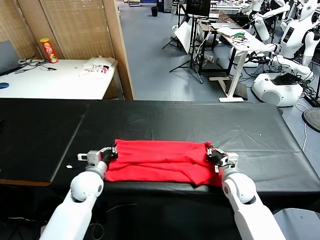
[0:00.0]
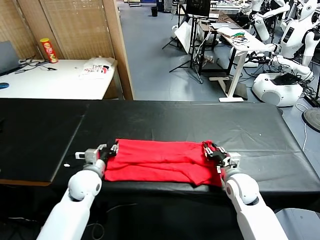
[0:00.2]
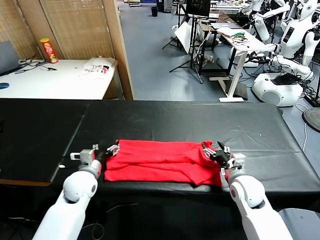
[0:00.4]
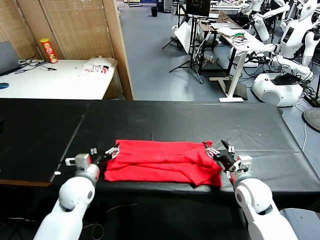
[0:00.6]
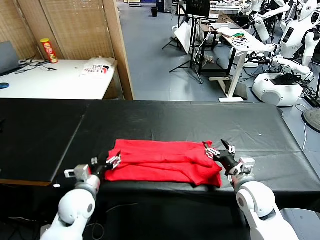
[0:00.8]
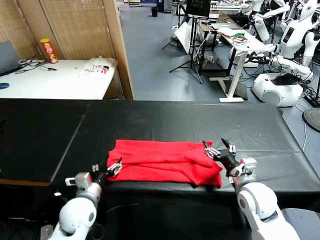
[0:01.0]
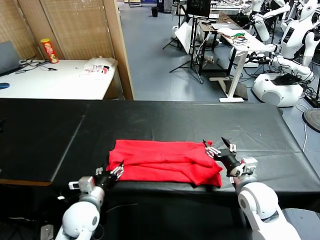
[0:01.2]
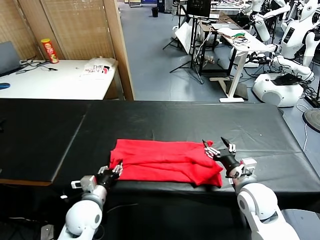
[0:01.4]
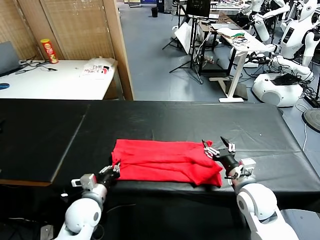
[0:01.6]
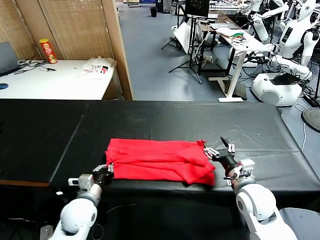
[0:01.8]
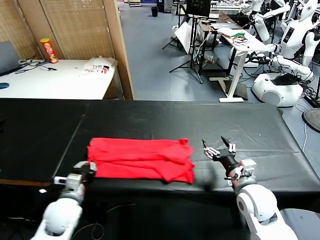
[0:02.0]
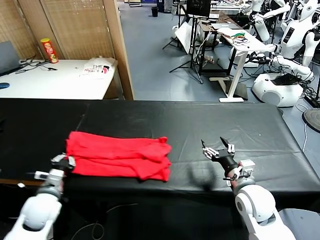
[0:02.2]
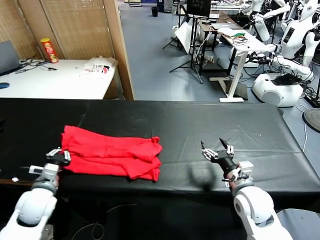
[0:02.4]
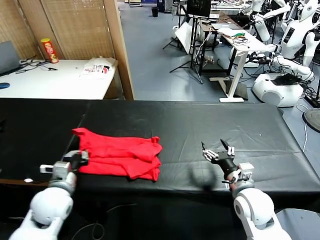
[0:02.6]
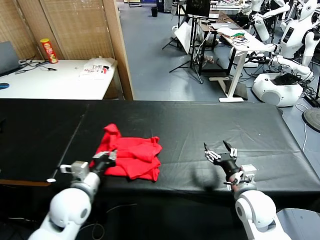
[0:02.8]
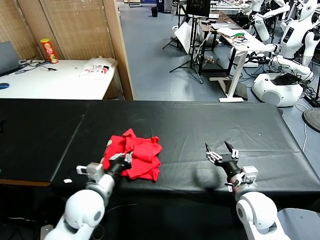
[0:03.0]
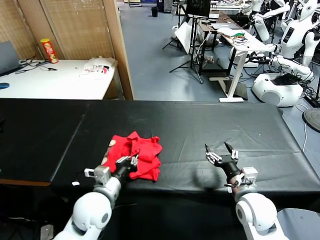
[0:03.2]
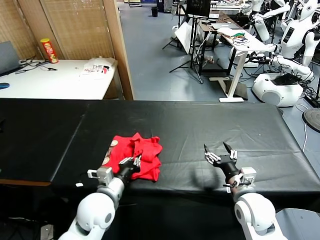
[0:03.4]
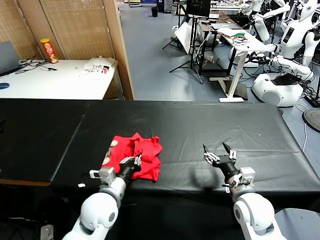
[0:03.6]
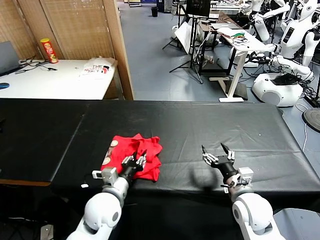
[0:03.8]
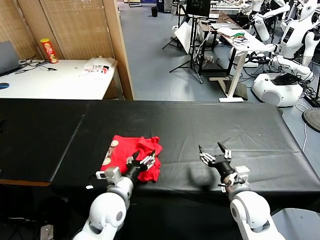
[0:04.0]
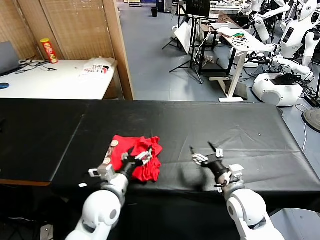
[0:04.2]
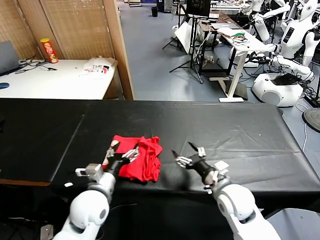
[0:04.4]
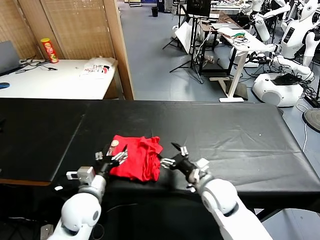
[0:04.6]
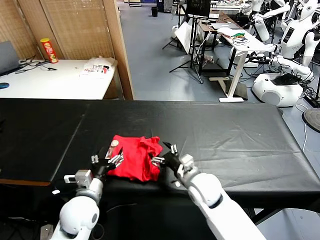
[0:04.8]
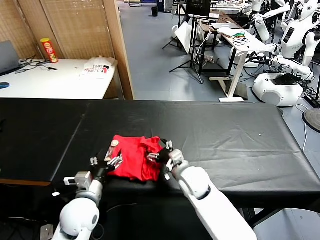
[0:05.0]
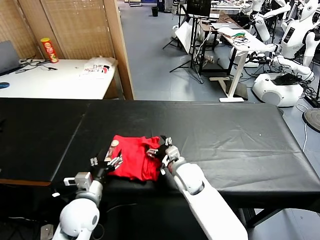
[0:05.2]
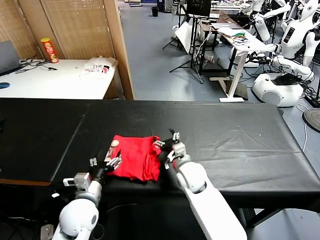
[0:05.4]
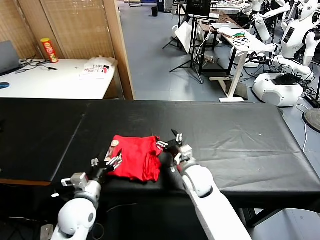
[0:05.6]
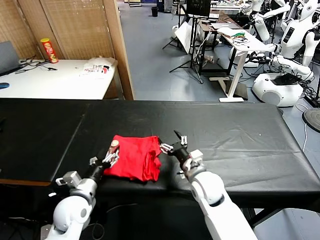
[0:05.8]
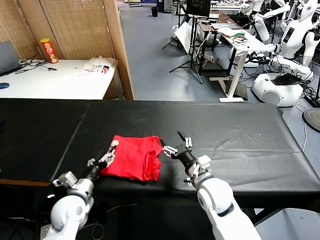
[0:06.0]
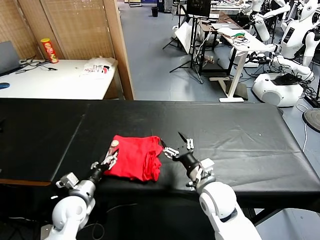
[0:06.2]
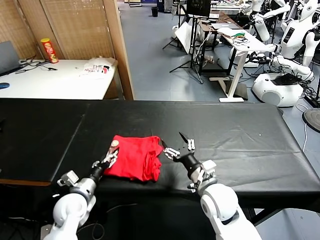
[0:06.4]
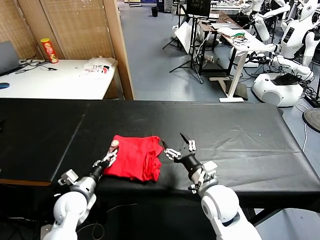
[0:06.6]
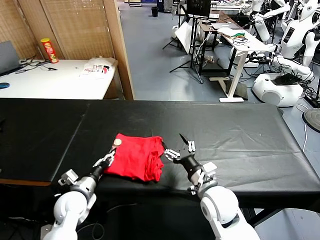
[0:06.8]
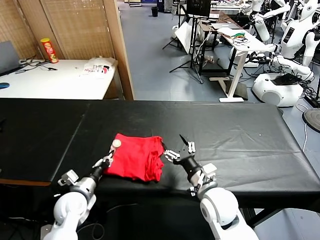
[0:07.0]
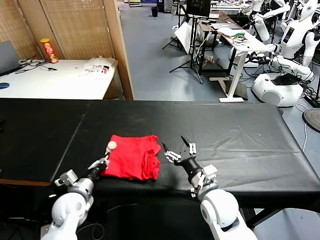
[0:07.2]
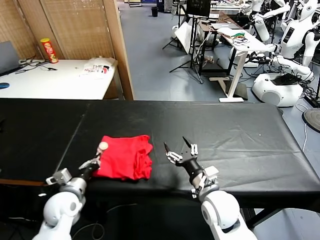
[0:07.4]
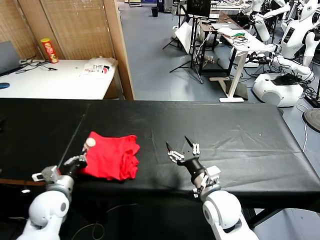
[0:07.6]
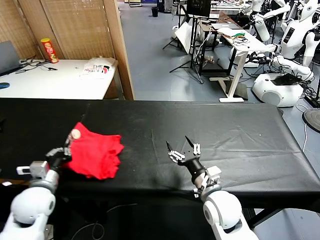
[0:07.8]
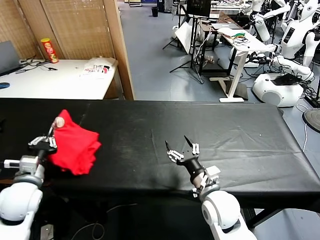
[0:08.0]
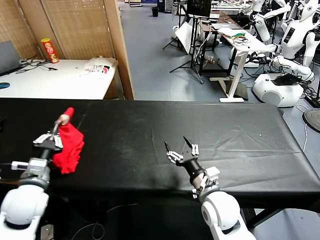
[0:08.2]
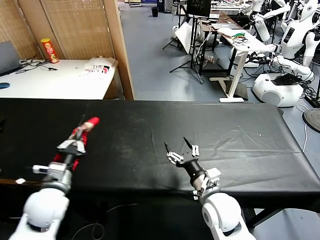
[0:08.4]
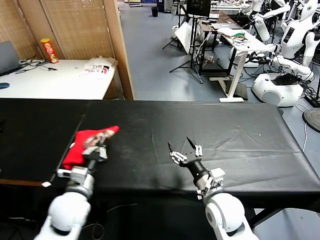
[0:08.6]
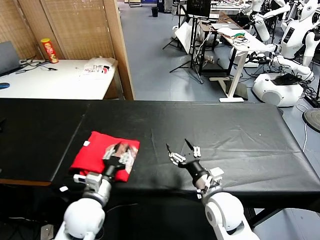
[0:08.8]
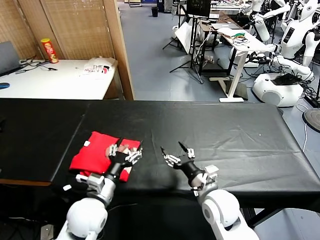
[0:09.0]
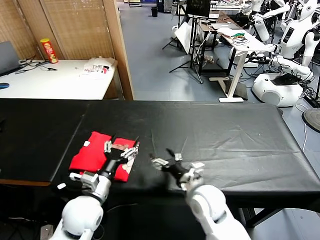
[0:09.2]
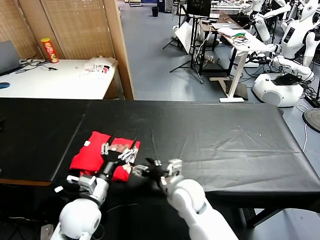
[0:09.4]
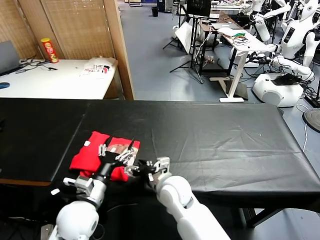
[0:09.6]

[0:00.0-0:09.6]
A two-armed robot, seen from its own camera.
Task of the whole recording: fold and organize the clothes.
Step, 0:00.0 to 0:01.6: use the left gripper to clamp the left edge of the fabric.
Step, 0:01.8 to 0:04.2: use the left gripper to drag the left edge of the fabric to the left and folds it over the right edge.
Step, 0:04.4 to 0:08.8: Flip the folded clothes over with left gripper.
0:00.0 to 0:01.6: The left gripper heads backward, covering some 10 cm, and opens, then closes again. The right gripper is displaced backward and upward by roughly 10 cm, and opens.
0:01.6 to 0:03.2: The left gripper heads upward, covering some 5 cm, and goes to the left and returns, about 10 cm each way.
0:03.2 to 0:04.8: The right gripper goes some 15 cm to the left and forward; the left gripper opens up.
0:04.8 to 0:06.4: The left gripper travels to the left and downward by approximately 10 cm; the right gripper heads backward, covering some 5 cm.
0:06.4 to 0:08.0: The left gripper shifts roughly 15 cm upward and to the left, and closes up.
0:08.0 to 0:09.6: The left gripper shifts approximately 15 cm to the right, and opens. Meanwhile the right gripper moves to the left and forward, some 15 cm.

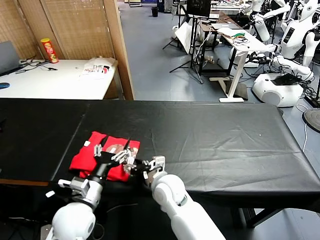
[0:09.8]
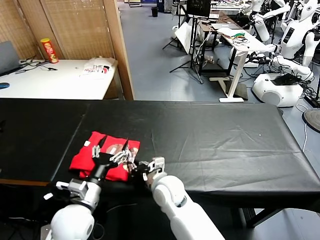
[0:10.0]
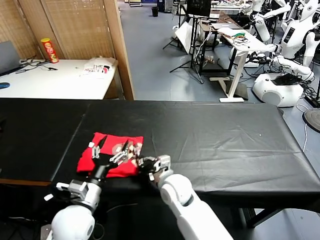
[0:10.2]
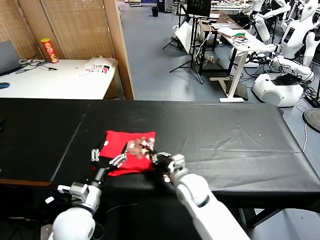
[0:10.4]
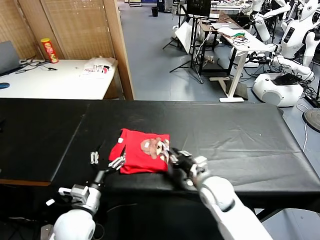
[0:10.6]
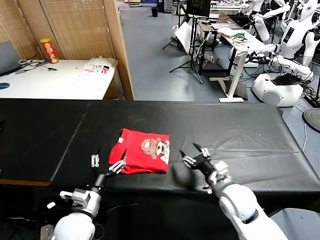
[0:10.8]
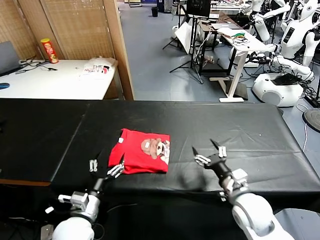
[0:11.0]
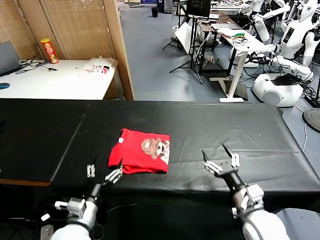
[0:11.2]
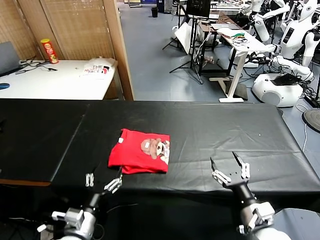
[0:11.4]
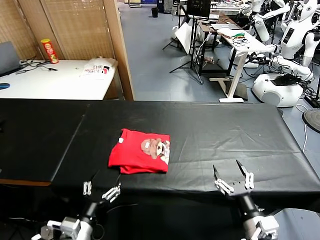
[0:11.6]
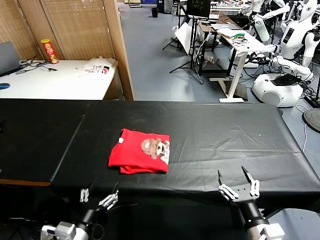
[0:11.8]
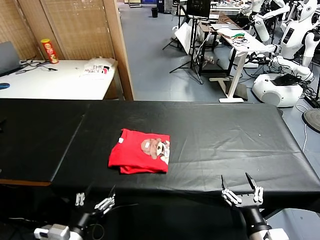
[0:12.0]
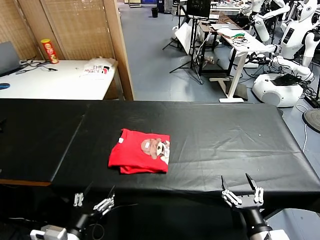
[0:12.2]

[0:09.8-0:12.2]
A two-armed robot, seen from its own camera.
Task of the whole recording: fold and organize the clothes.
Step, 0:09.8 to 0:10.6: Drag the clothes to the center of the table.
0:09.8 to 0:11.0: The right gripper heads to the right, covering about 25 cm, and closes, then reopens.
0:11.0 to 0:12.2: The left gripper goes some 10 cm backward and upward, while the right gripper is displaced backward by roughly 15 cm.

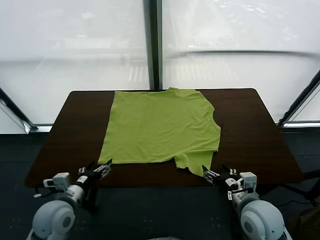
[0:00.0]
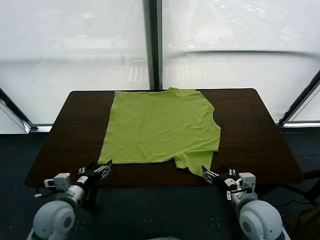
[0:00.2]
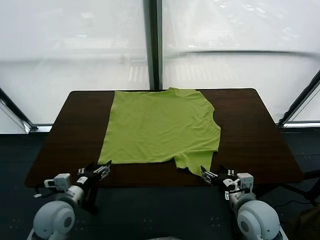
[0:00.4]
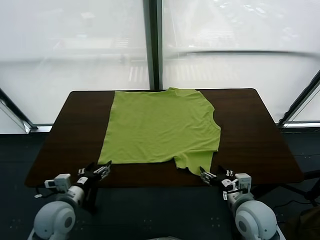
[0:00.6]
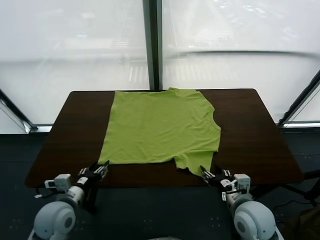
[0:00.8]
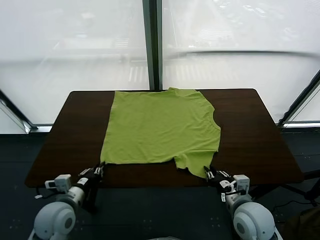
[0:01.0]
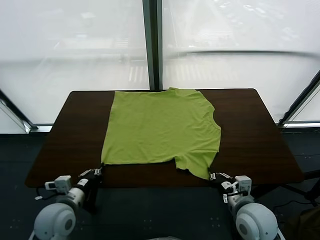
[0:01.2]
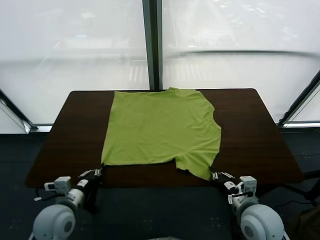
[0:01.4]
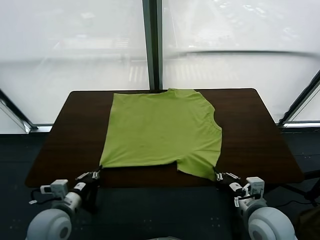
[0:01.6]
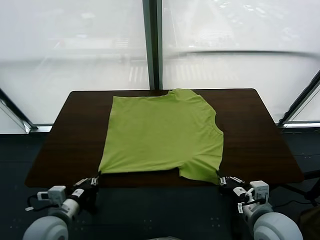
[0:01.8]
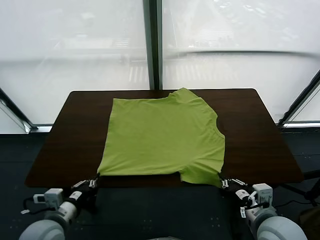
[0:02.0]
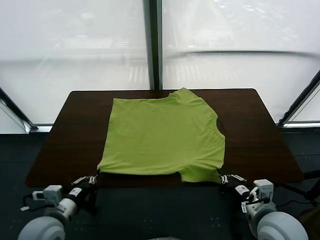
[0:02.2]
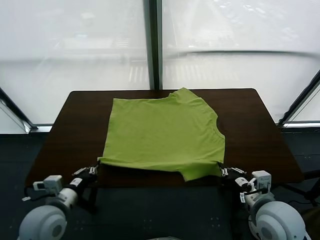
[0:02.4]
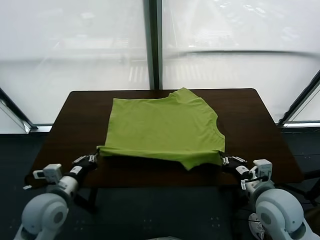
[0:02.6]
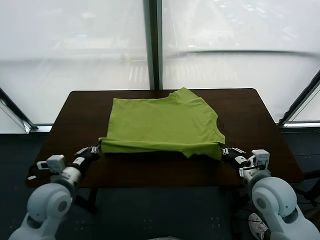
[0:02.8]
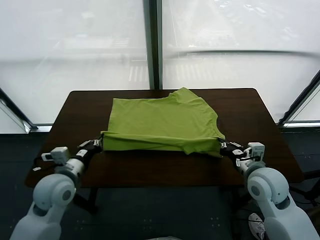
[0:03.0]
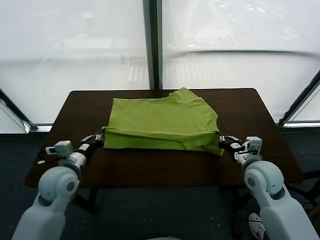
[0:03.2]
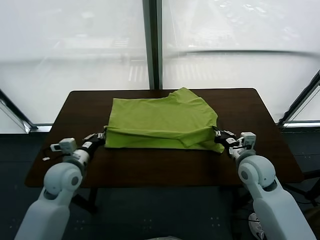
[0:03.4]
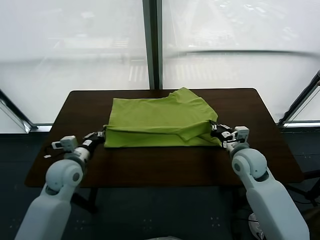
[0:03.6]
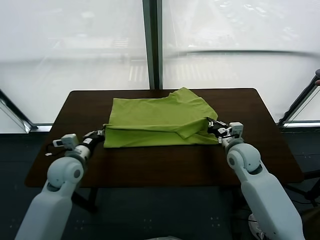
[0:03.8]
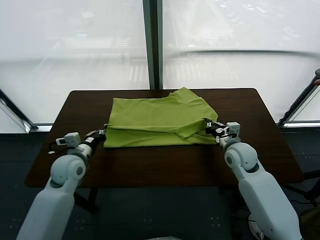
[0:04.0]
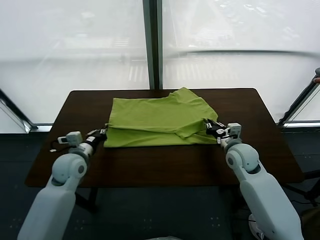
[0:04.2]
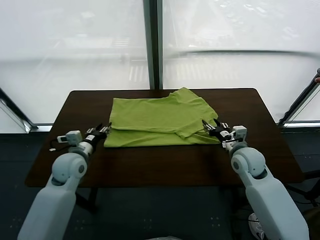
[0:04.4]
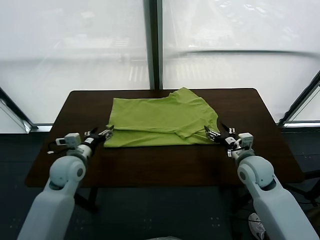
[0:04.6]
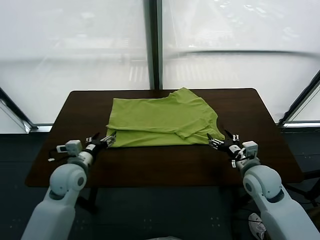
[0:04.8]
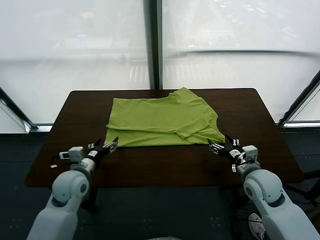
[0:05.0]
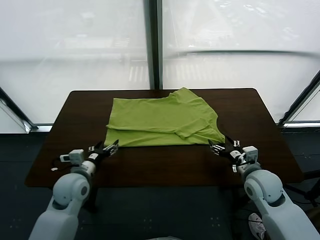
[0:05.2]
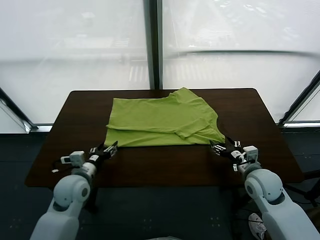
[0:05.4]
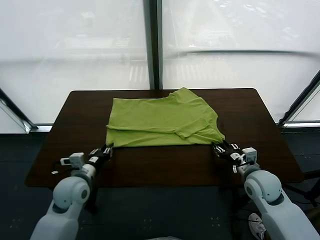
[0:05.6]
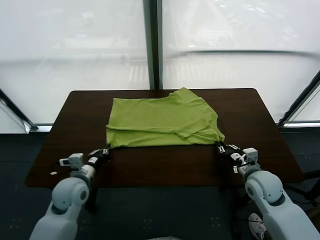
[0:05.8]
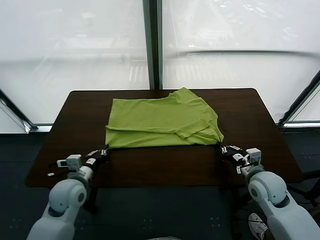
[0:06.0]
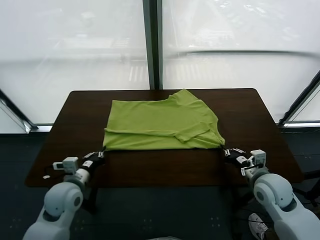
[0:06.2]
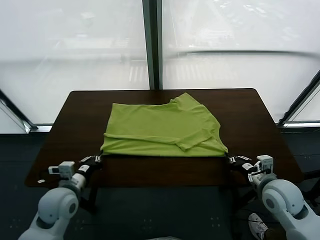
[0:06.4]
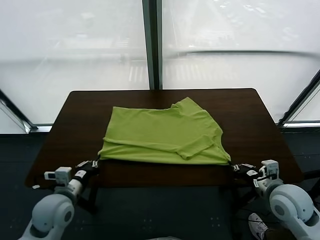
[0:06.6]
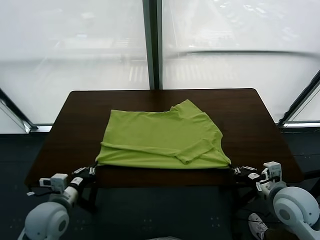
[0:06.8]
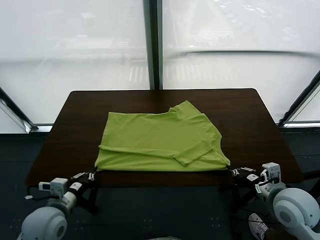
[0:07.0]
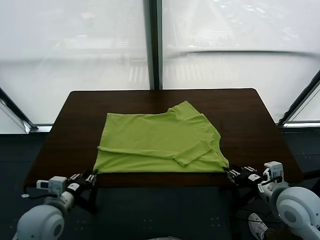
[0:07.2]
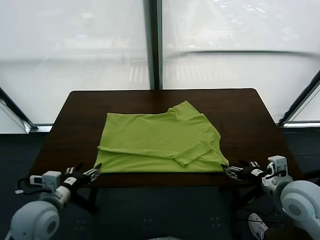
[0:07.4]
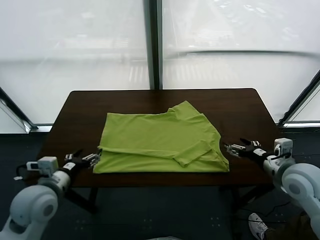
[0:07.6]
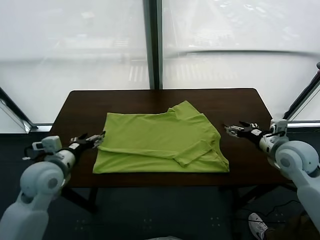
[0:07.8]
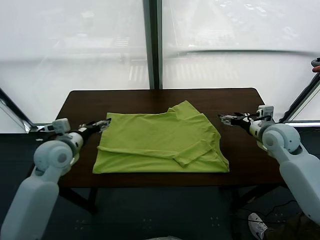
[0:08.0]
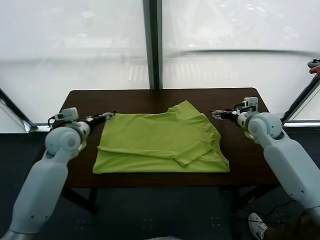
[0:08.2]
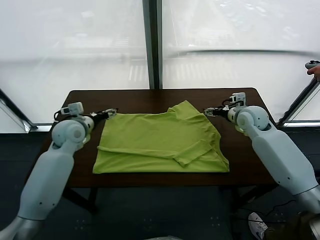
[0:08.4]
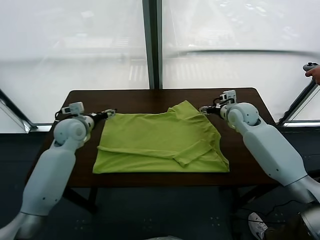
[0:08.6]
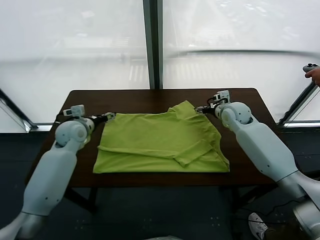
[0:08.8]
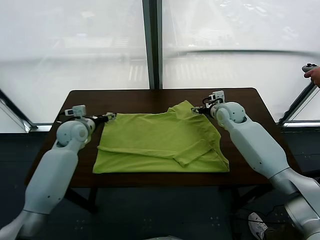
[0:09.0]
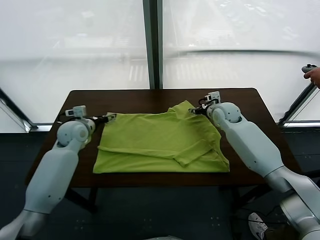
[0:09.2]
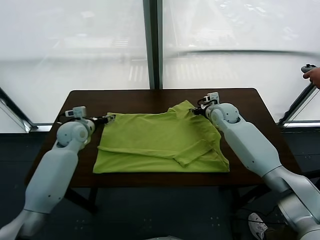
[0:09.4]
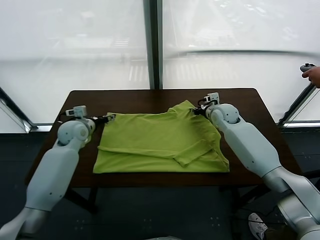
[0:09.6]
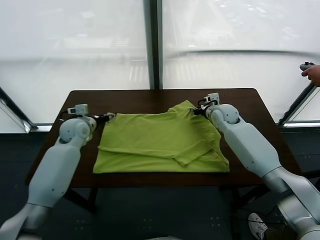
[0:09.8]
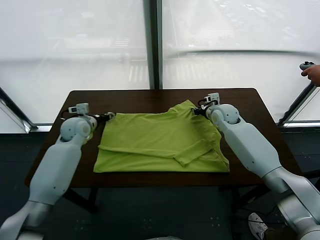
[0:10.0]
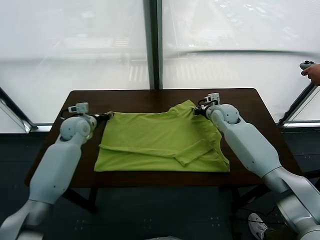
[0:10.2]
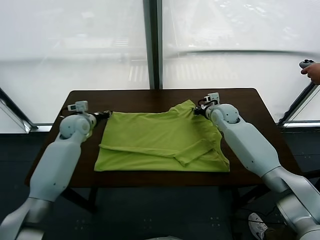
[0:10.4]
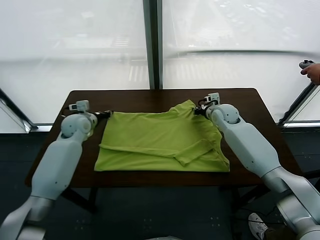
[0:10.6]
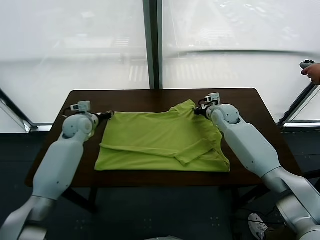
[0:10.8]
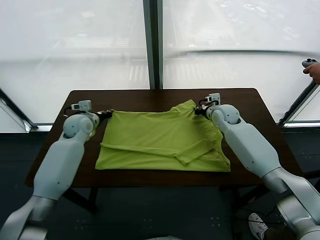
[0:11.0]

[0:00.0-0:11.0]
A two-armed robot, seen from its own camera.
Task of the whole recording: fold and organize the clothes.
Step, 0:00.0 to 0:01.4: use both grippers simultaneously to clamp the lower edge of the clothing fabric.
Step, 0:01.6 to 0:04.4: use both grippers to drag the lower edge of the fabric forward and fold it over the upper edge.
Step, 0:04.6 to 0:07.2: Drag the clothes downward with both gripper.
0:01.6 to 0:03.2: Both grippers travel together forward, approximately 15 cm.
0:03.2 to 0:04.8: The right gripper goes roughly 5 cm backward, and opens; the left gripper opens.
0:04.8 to 0:06.2: The left gripper moves backward, approximately 5 cm, and closes. Meanwhile the right gripper changes place by about 5 cm, and closes.
0:06.2 to 0:07.8: The left gripper travels forward and upward by some 10 cm, and opens up. Meanwhile the right gripper shifts roughly 20 cm forward, and opens up.
0:07.8 to 0:09.4: The left gripper goes about 15 cm forward and downward. The right gripper shifts roughly 20 cm forward, to the left and downward, and closes its fingers.
0:09.4 to 0:11.0: The left gripper closes its fingers, while the right gripper closes.
